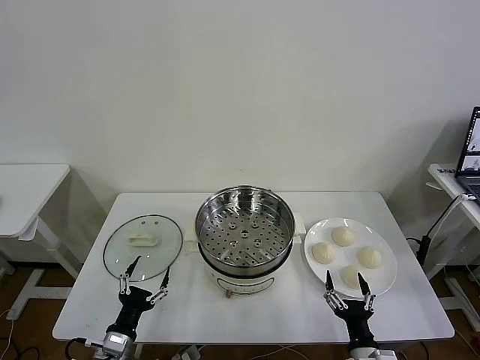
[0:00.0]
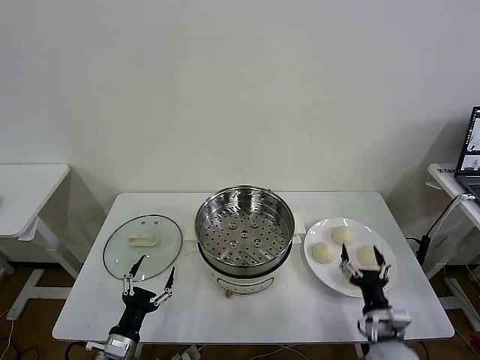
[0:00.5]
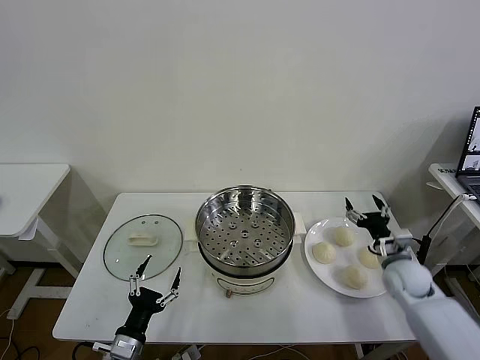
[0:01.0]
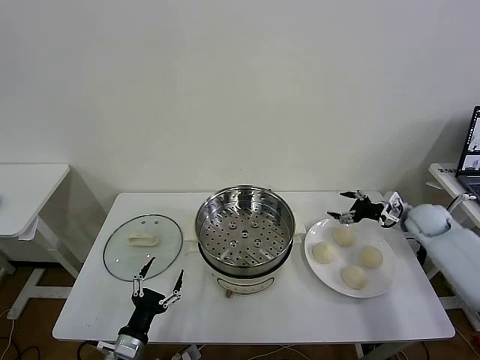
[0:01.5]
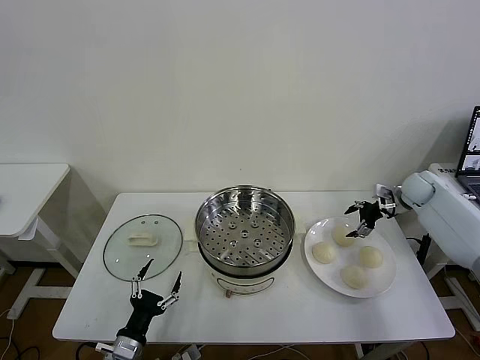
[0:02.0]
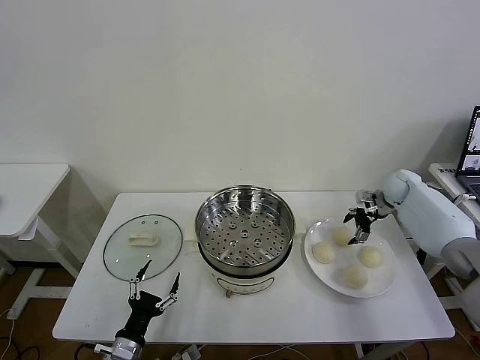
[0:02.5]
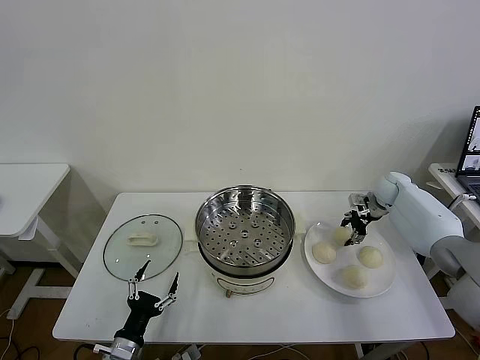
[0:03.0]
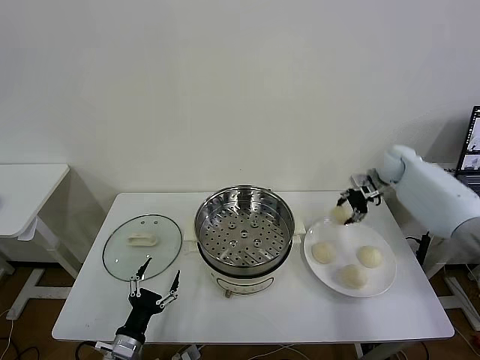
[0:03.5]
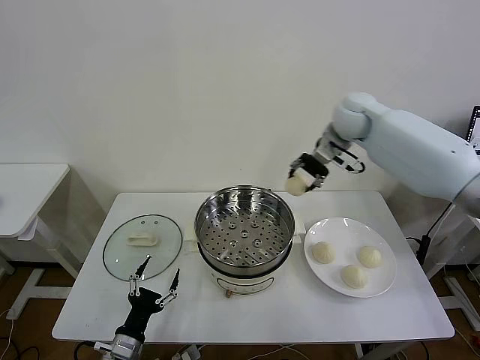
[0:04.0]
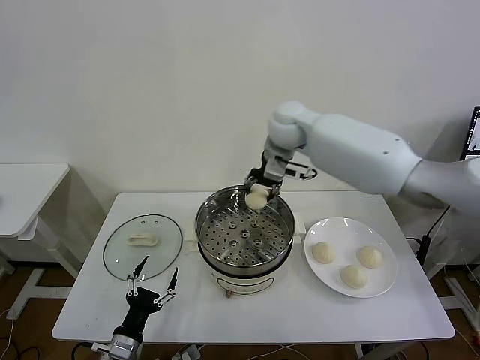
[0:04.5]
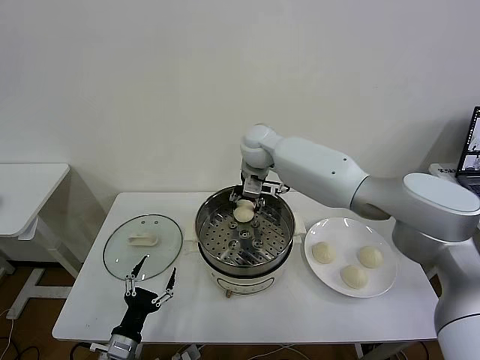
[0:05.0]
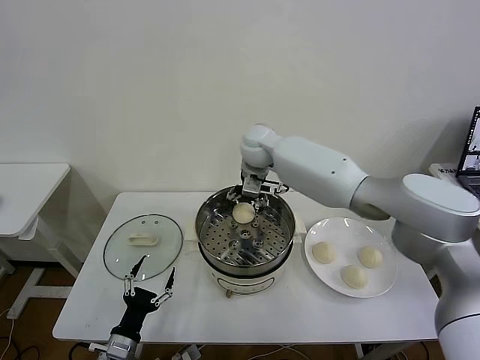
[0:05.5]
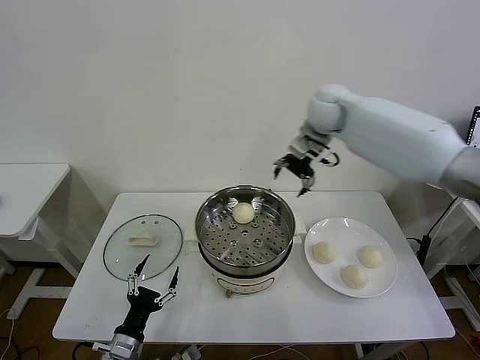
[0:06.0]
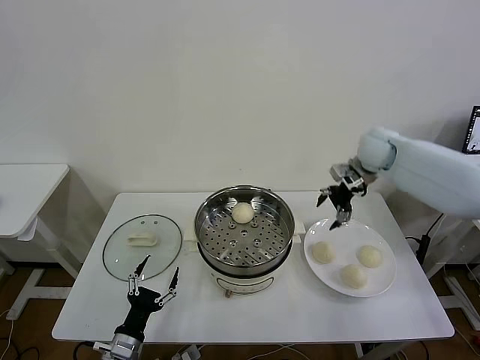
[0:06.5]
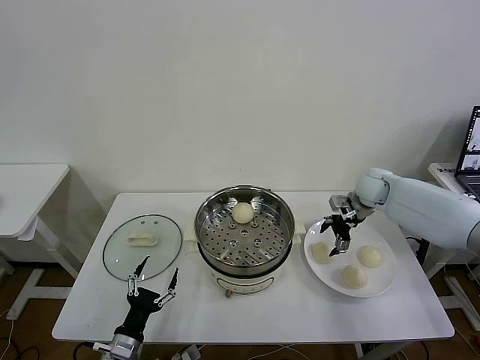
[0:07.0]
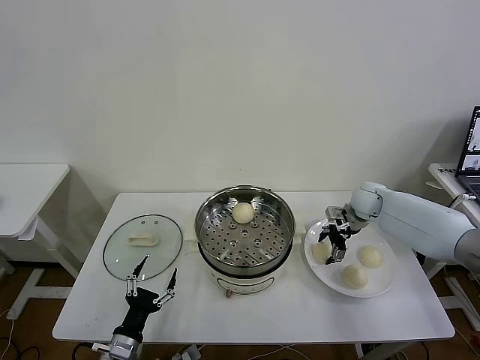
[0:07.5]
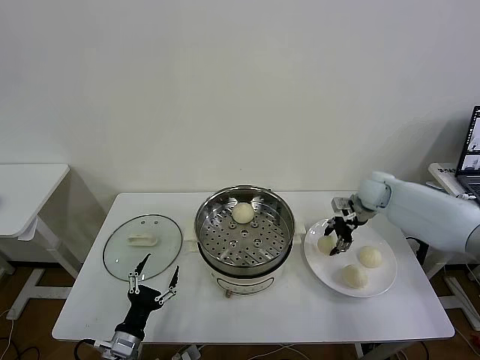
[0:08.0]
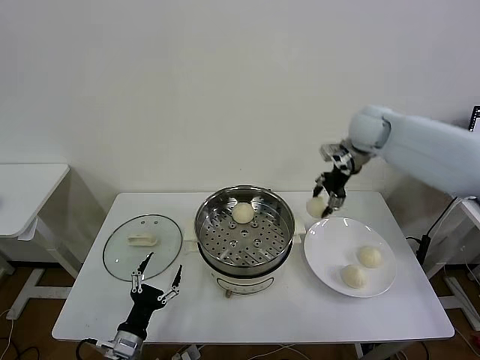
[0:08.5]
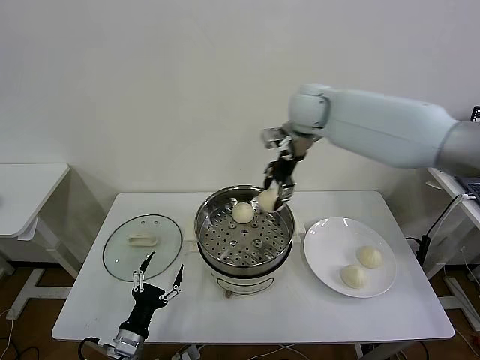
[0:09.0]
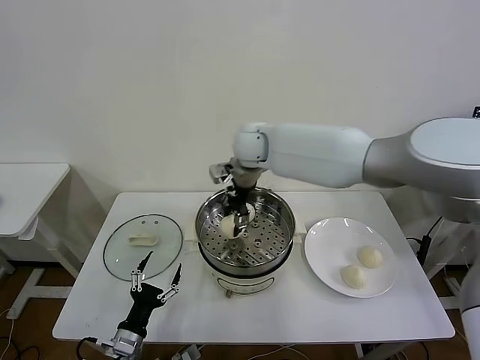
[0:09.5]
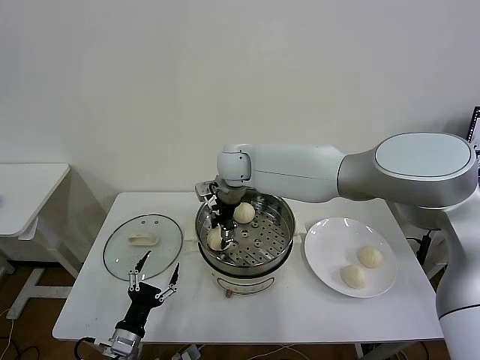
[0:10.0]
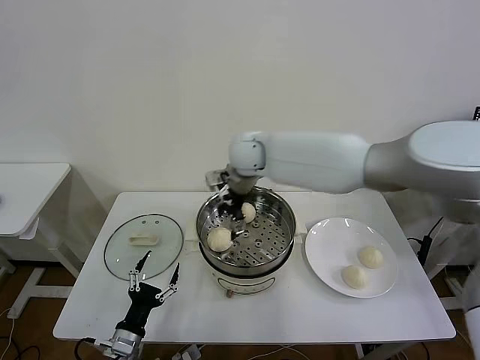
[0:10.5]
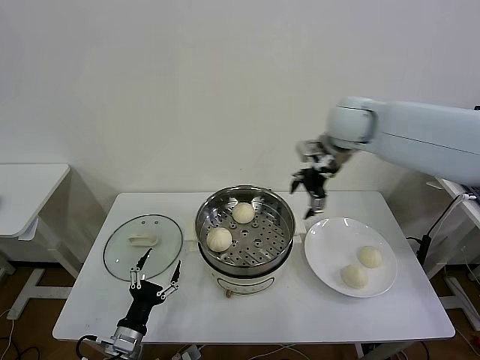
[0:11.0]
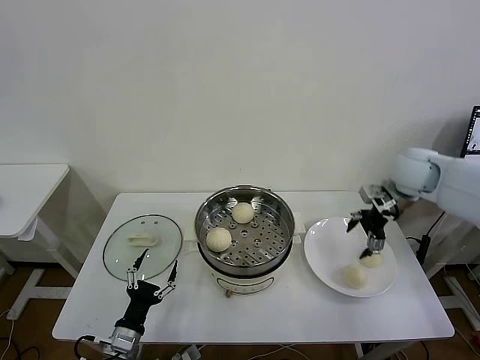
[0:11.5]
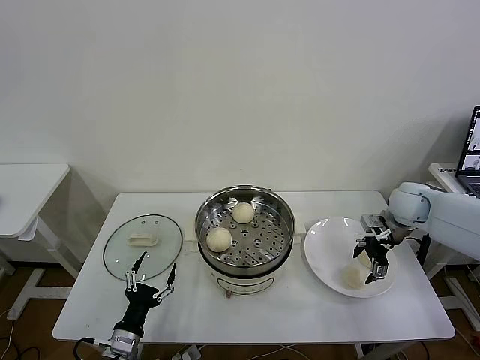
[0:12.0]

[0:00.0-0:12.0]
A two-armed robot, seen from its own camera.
Task of the whole recording: take steamed baozi put them in steamer then cover it.
Step, 0:00.0 to 0:03.0: Grasp the baozi in the plate with right gripper.
Step, 0:03.5 to 0:05.0: Place the baozi on the steamer with right gripper.
Step, 0:05.5 to 0:07.5: Grasp the baozi in the plate with right gripper.
Step, 0:08.0 to 0:10.0: Place the baozi on the steamer with right gripper.
0:02.0 to 0:04.0: The right gripper goes roughly 35 cm to the left and upward, and closes up.
0:04.0 to 0:06.0: The right gripper travels to the left and back again, approximately 15 cm each way, and opens.
0:06.0 to 0:08.0: The right gripper heads downward and to the right, covering about 25 cm, and closes up.
0:08.0 to 0:10.0: The right gripper is displaced to the left by approximately 35 cm.
0:10.0 to 0:12.0: The right gripper travels to the right by about 40 cm, and opens.

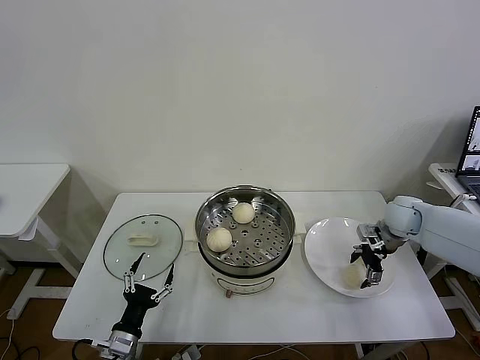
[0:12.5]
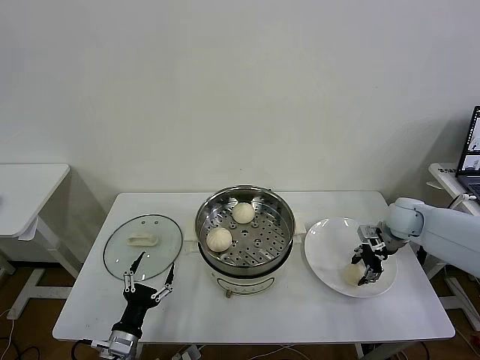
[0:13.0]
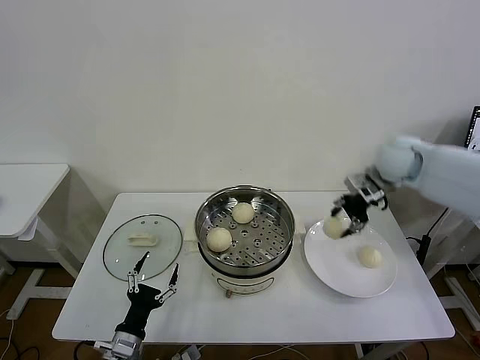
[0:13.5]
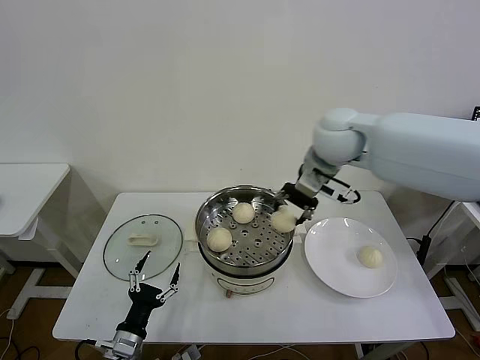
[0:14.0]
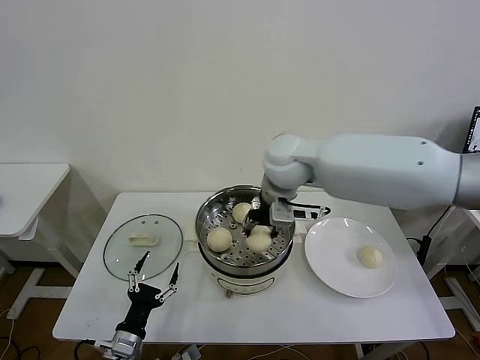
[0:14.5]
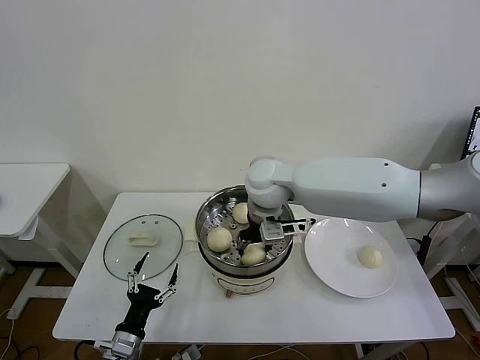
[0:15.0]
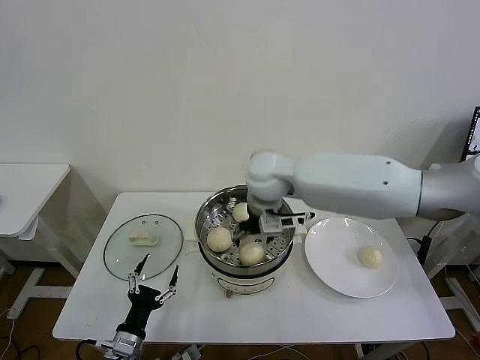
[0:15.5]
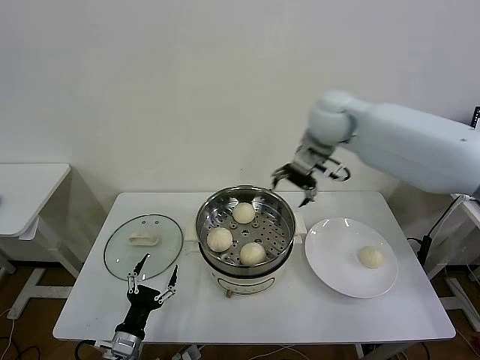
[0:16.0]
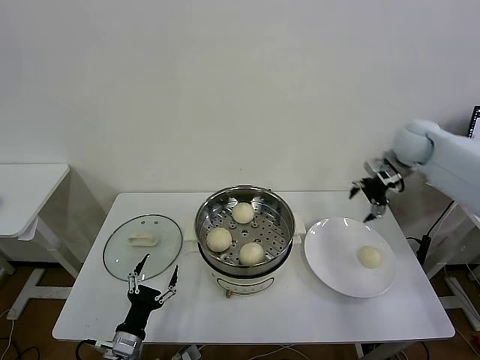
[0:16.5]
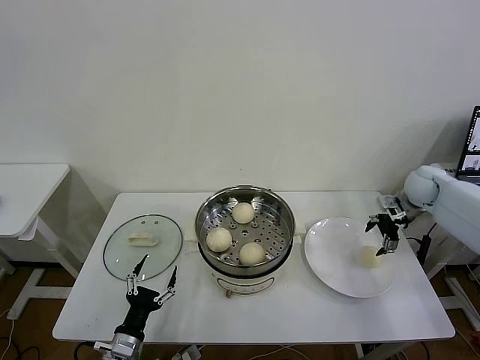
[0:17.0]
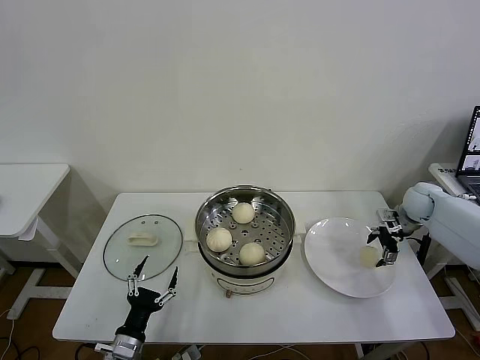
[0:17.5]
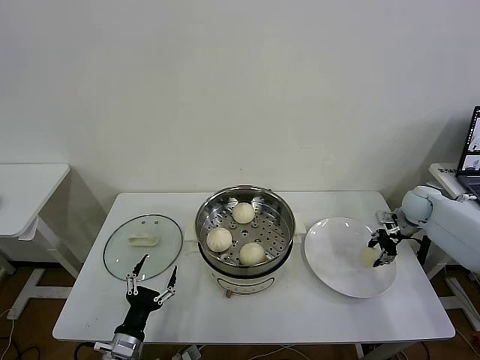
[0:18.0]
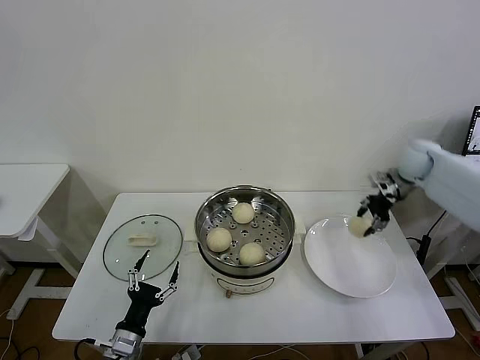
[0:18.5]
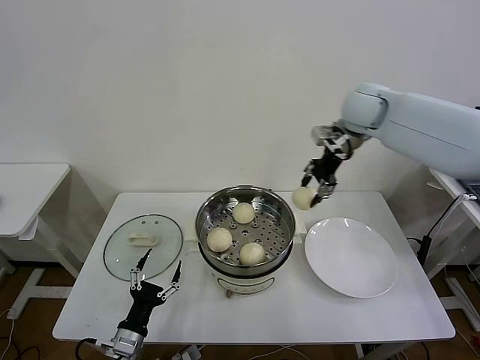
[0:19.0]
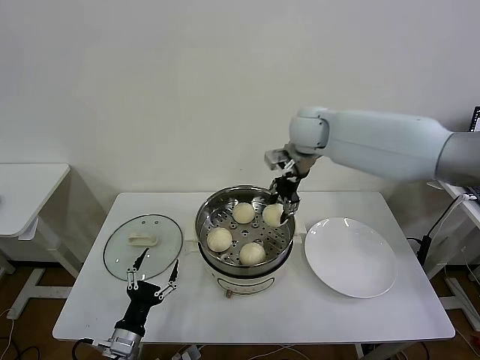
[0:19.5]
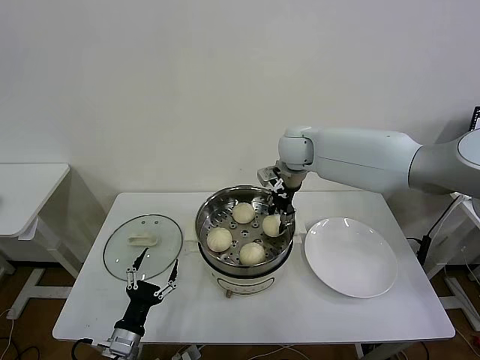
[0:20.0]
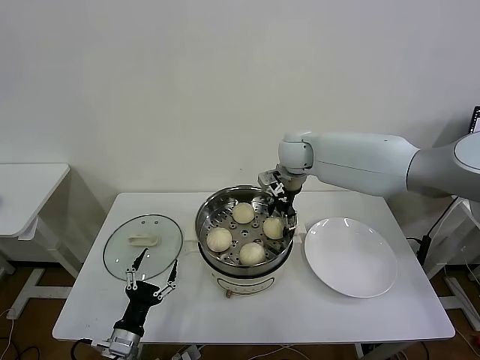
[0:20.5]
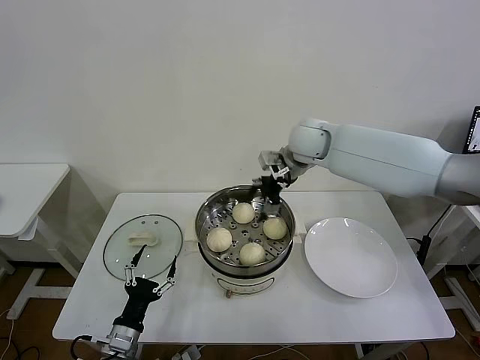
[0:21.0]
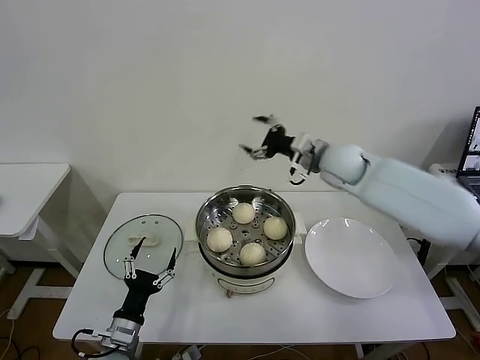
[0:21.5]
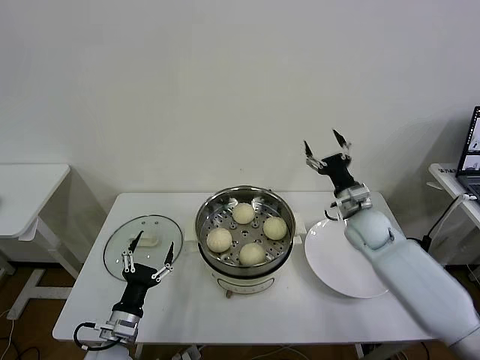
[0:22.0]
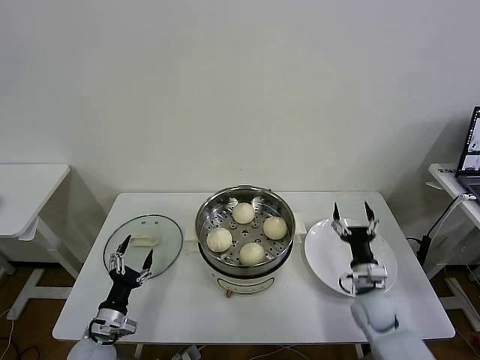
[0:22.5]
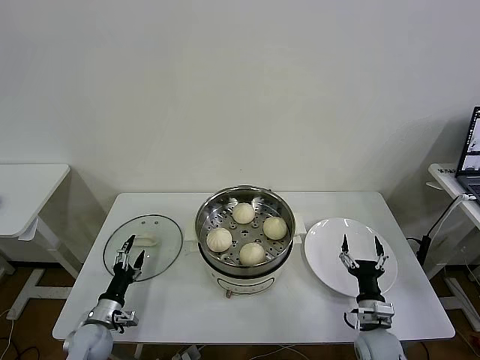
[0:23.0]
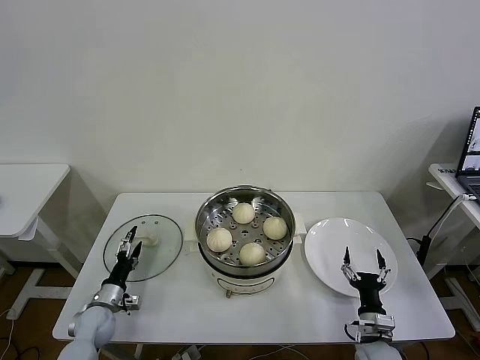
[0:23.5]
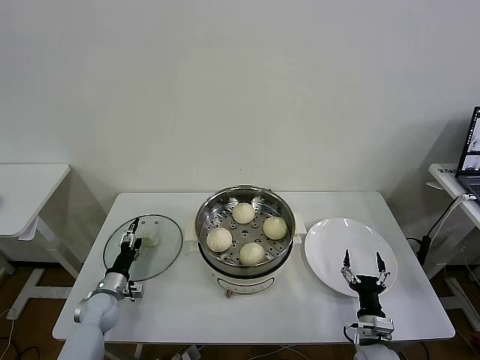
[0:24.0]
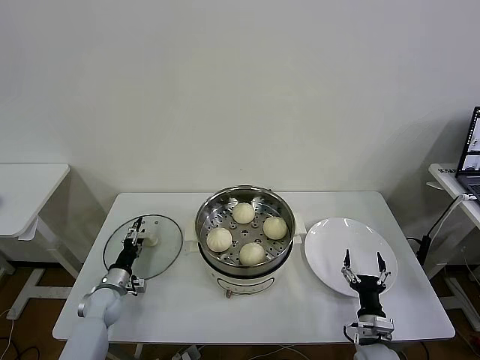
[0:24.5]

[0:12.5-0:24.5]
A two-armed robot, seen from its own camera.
Task of the whole recording: take steamed baozi put them in steamer then cover it.
Step, 0:13.5 to 0:15.0: Place the baozi on the steamer with right gripper.
Step, 0:15.5 to 0:17.5: Grasp the baozi in the plate with right gripper.
Step, 0:18.5 to 0:20.0: Place the baozi on the steamer with right gripper.
0:12.5 to 0:14.5: The right gripper is displaced to the left and upward by roughly 35 cm, and closes.
0:14.5 to 0:16.5: The right gripper goes approximately 30 cm to the right, and opens up.
0:16.5 to 0:18.5: The right gripper goes downward and returns, about 15 cm each way, and closes up.
0:18.5 to 0:20.5: The right gripper moves to the left, approximately 30 cm, and opens up.
0:20.5 to 0:22.5: The left gripper ends up approximately 5 cm from where it was. Meanwhile the right gripper moves downward, backward and to the right, approximately 40 cm.
0:22.5 to 0:24.5: The right gripper shifts approximately 15 cm backward and downward, while the left gripper moves forward, about 15 cm.

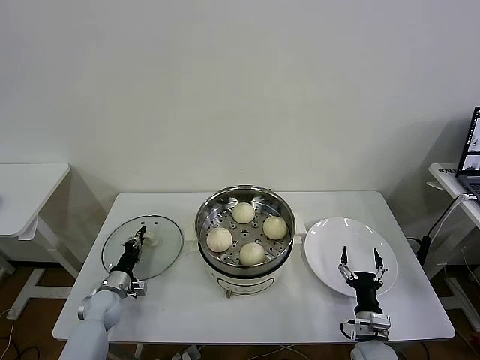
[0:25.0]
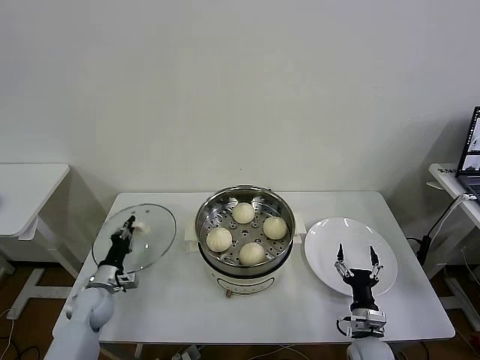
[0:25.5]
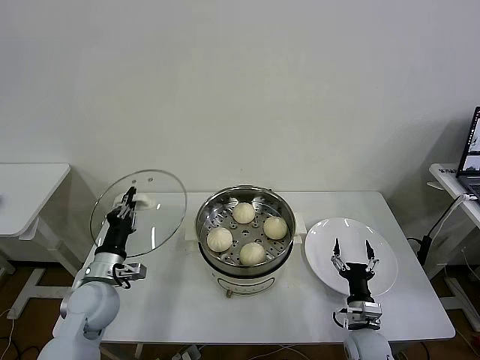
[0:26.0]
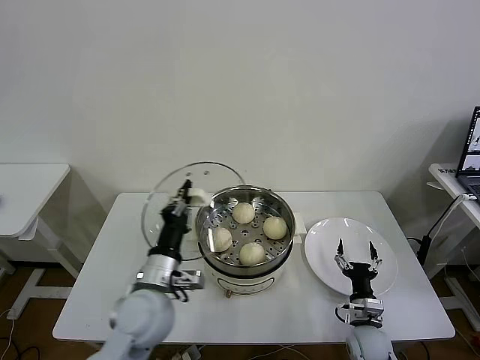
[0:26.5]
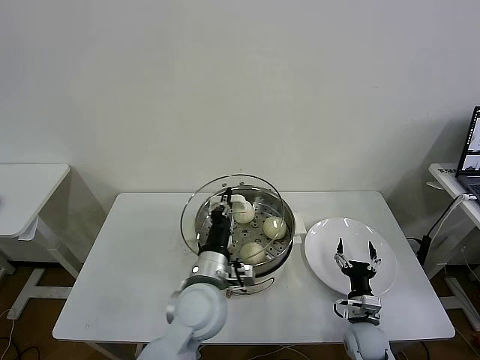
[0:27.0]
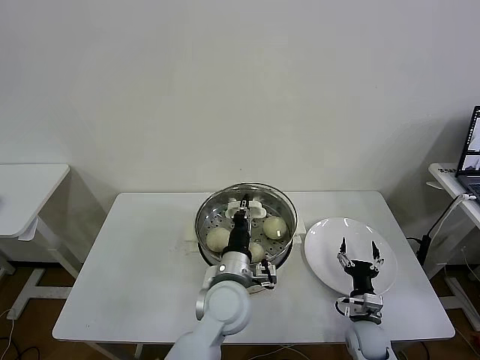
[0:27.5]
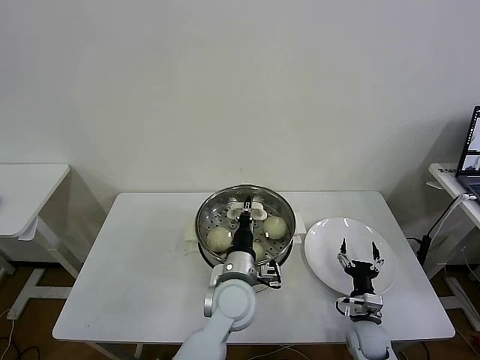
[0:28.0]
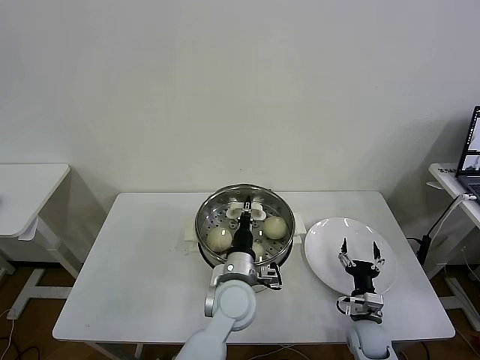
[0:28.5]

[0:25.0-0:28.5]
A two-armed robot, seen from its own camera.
Task of the whole recording: take steamed baozi put them in steamer then cover it.
0:25.0 to 0:27.0: The left gripper is displaced to the right and upward by about 35 cm.
0:27.0 to 0:28.5: The left gripper travels to the right by about 5 cm.
